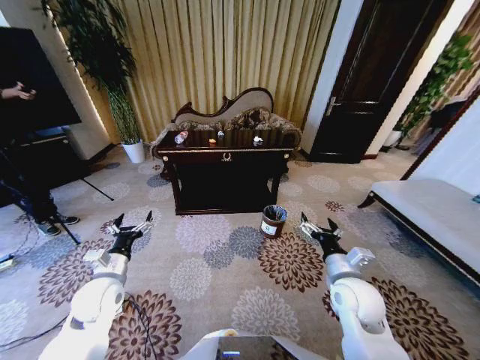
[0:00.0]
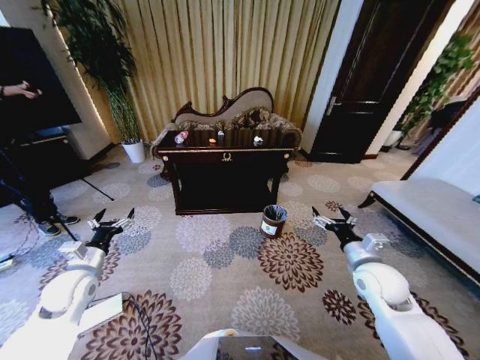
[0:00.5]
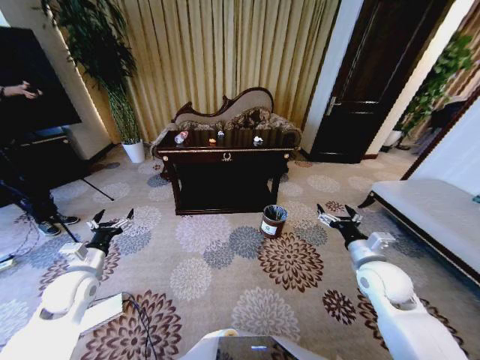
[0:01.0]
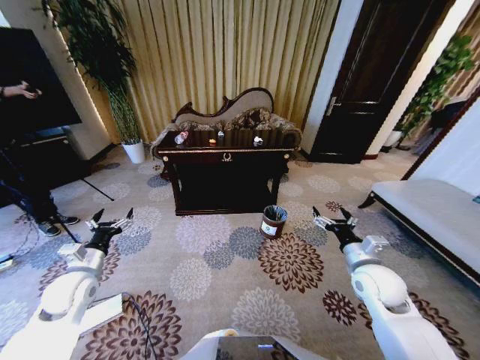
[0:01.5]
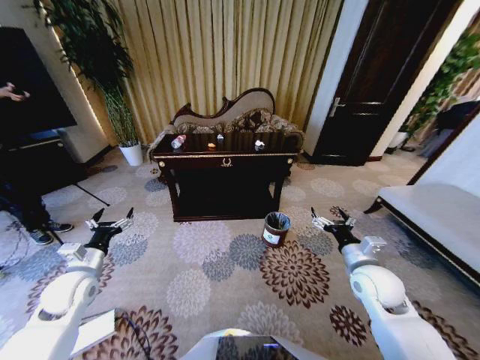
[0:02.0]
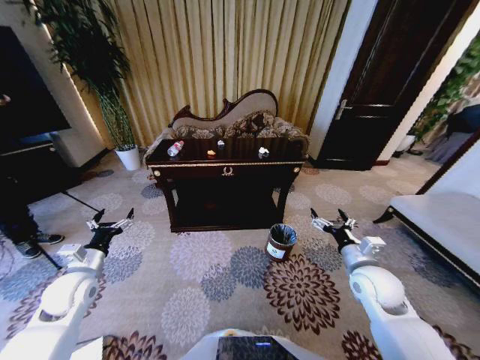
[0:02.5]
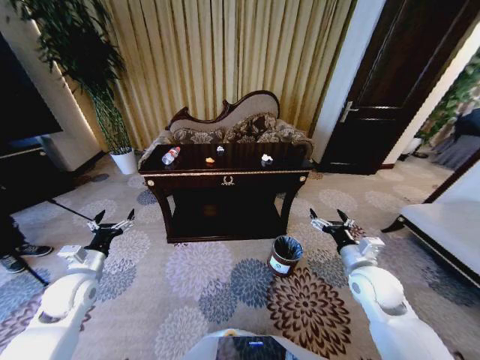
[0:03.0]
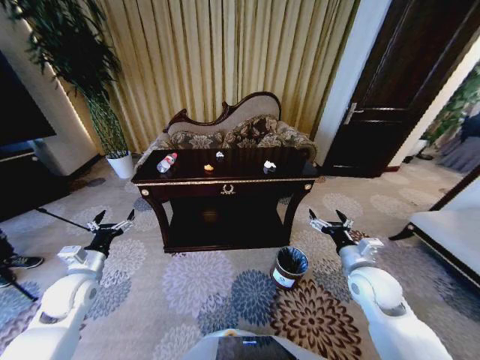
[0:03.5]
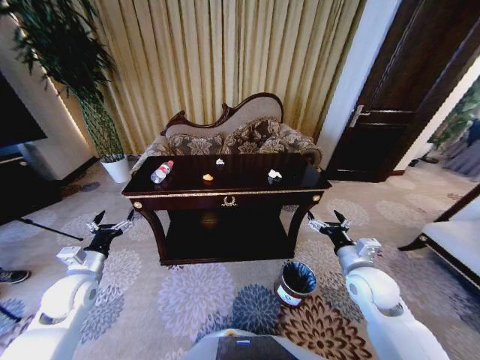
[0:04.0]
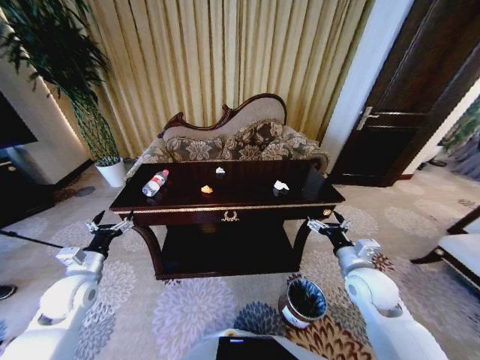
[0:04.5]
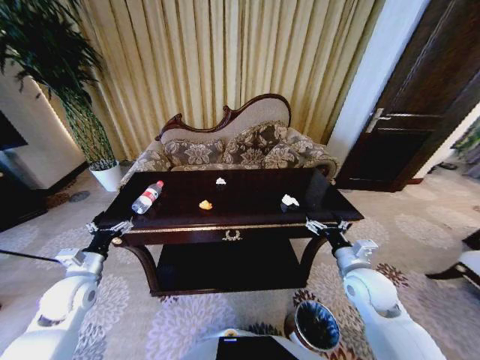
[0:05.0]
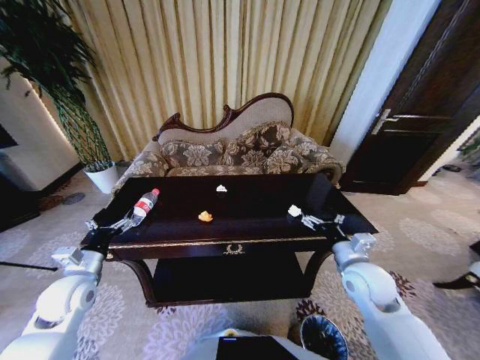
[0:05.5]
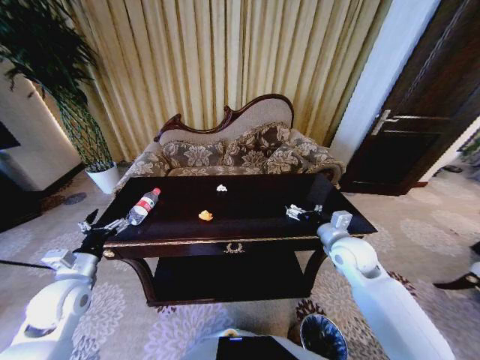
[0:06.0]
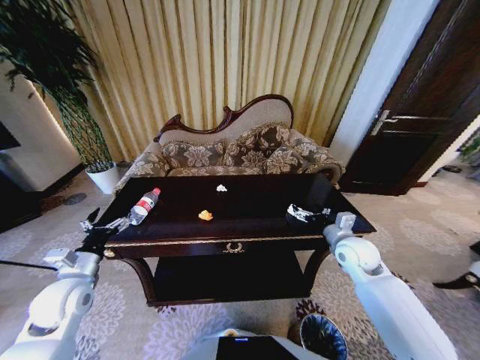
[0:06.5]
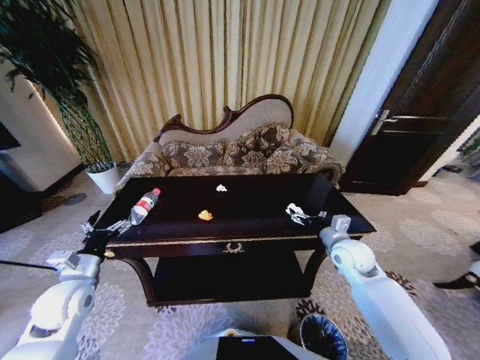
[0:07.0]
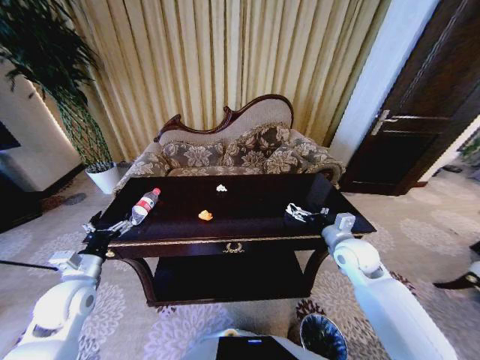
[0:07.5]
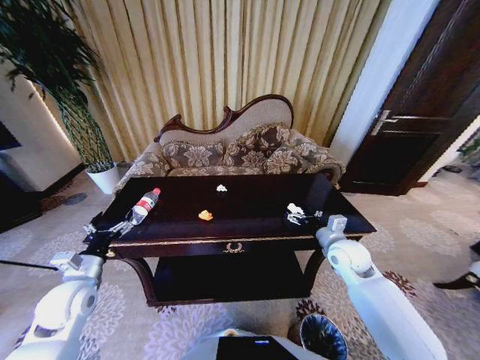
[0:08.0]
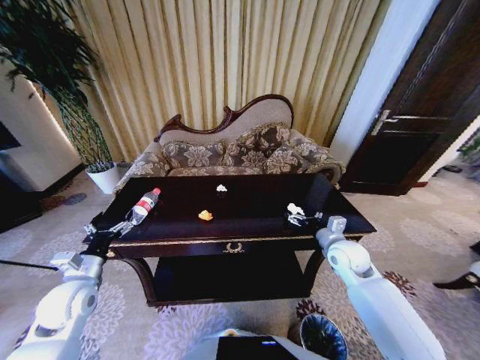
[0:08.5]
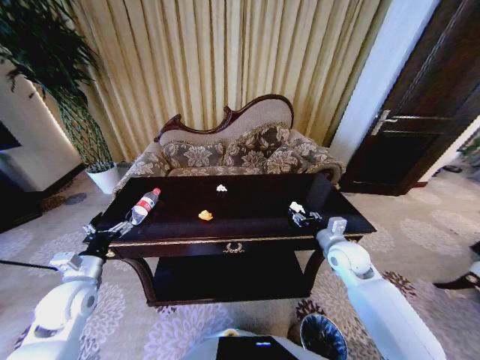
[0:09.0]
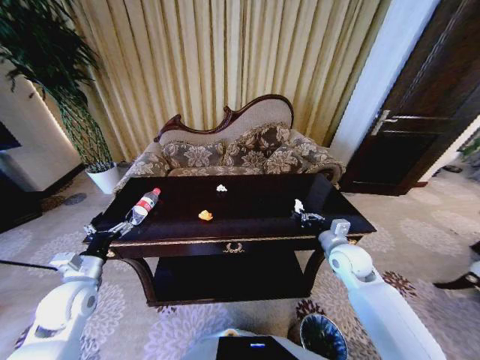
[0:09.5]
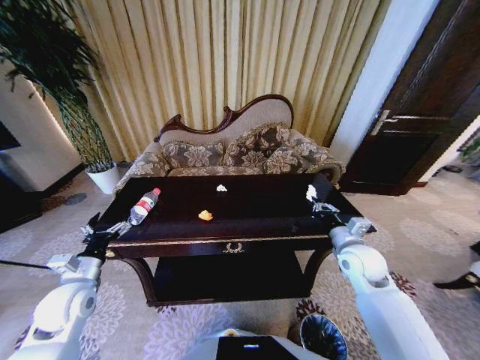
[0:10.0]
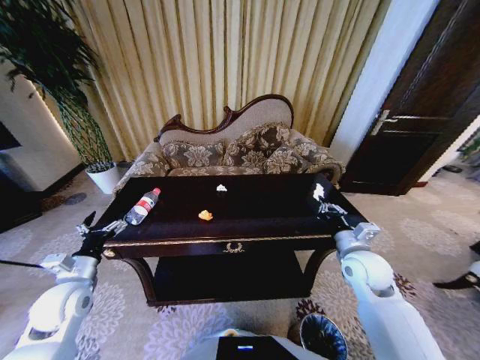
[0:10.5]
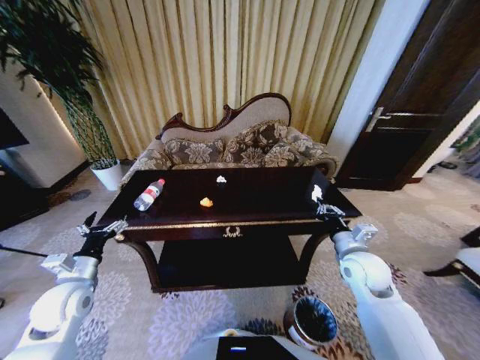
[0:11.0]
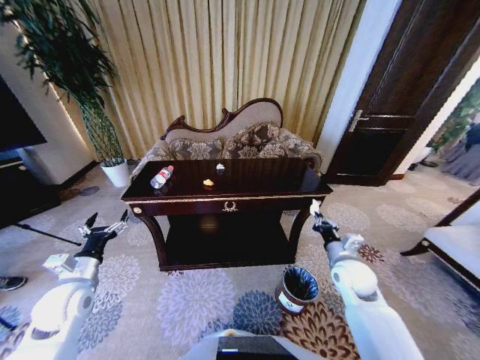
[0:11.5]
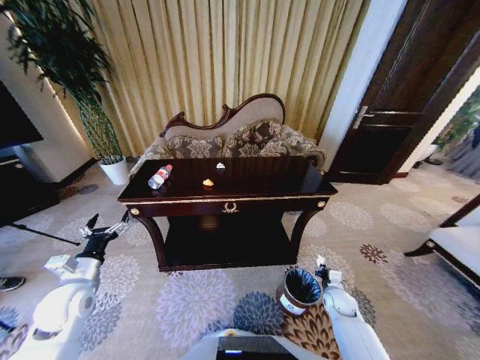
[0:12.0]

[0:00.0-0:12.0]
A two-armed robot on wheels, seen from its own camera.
Task of the whole recording: Move to the front of the table and place the trash on the table into the trash bin.
0:04.0 to 0:06.0: The right gripper heads forward, covering approximately 5 cm.
0:06.0 to 0:08.0: The grippers make only small movements.
0:08.0 to 0:10.0: The right gripper closes.
0:10.0 to 0:12.0: The right gripper moves downward, about 25 cm.

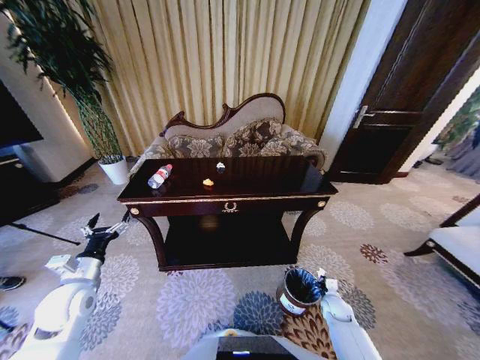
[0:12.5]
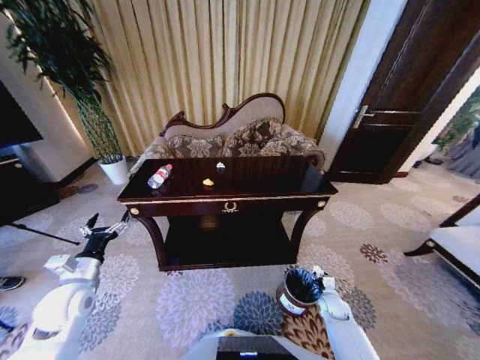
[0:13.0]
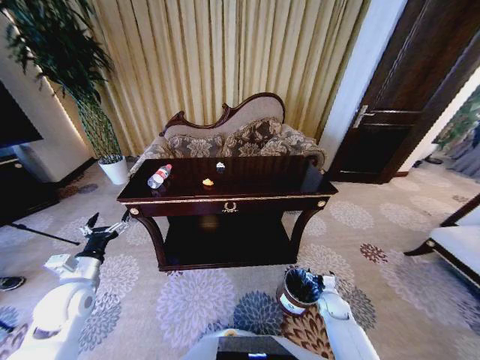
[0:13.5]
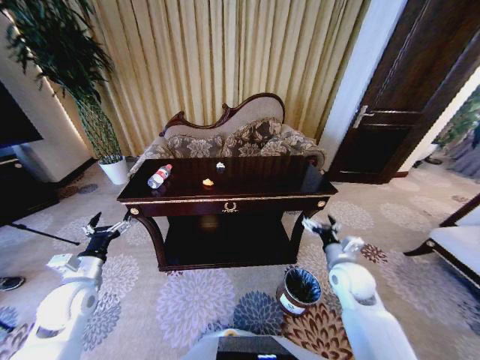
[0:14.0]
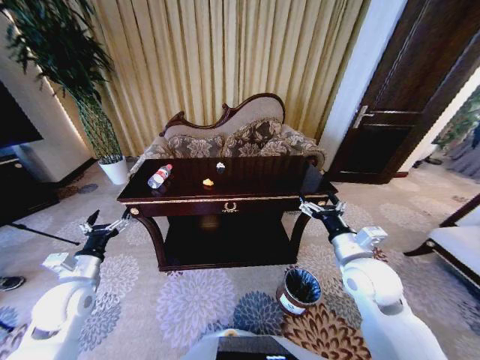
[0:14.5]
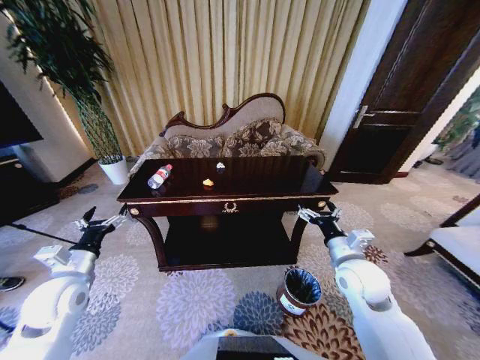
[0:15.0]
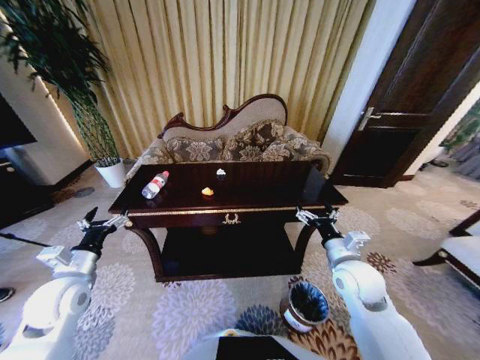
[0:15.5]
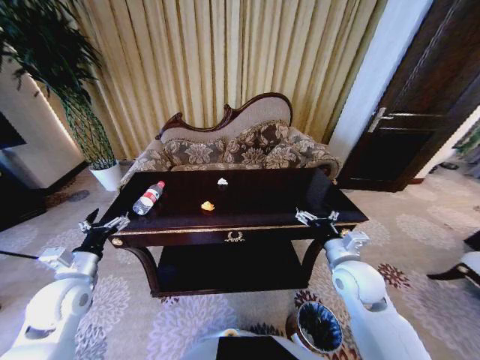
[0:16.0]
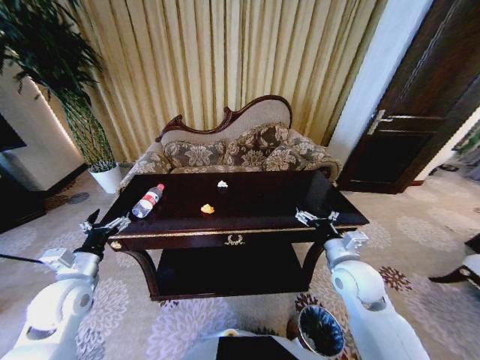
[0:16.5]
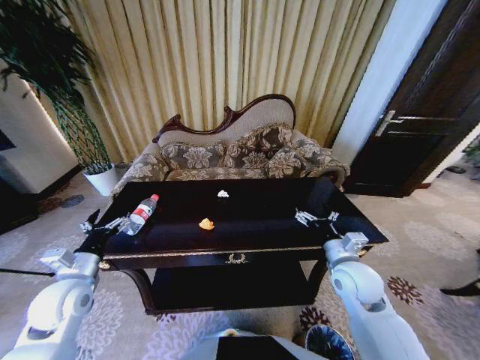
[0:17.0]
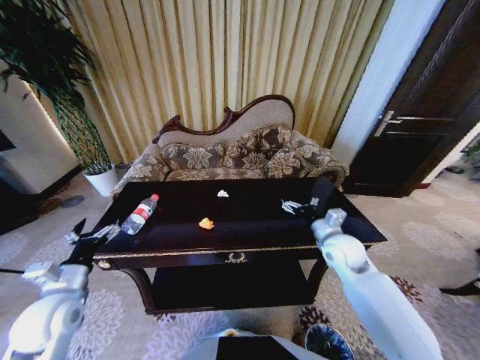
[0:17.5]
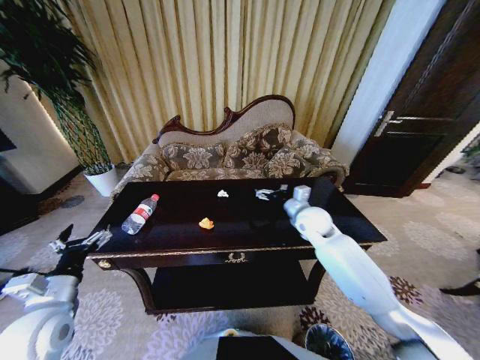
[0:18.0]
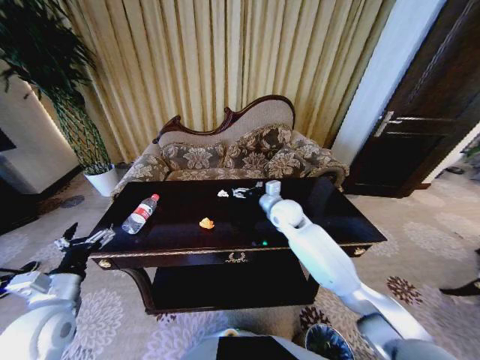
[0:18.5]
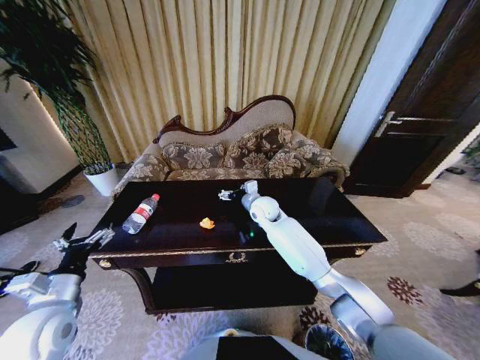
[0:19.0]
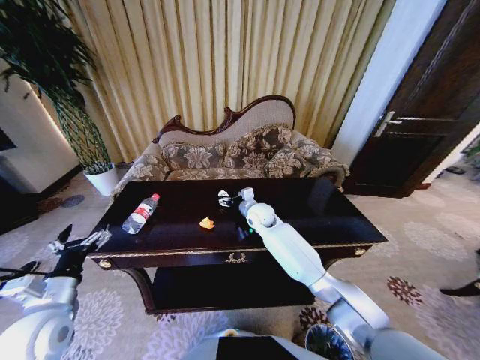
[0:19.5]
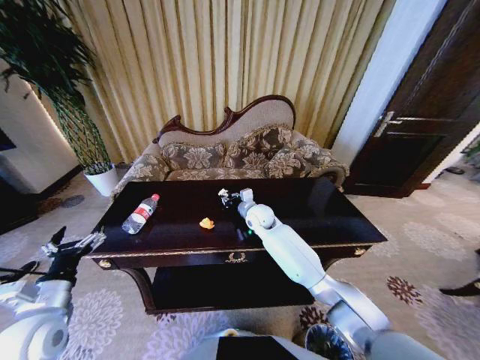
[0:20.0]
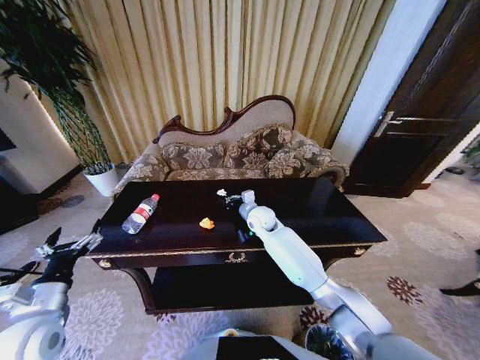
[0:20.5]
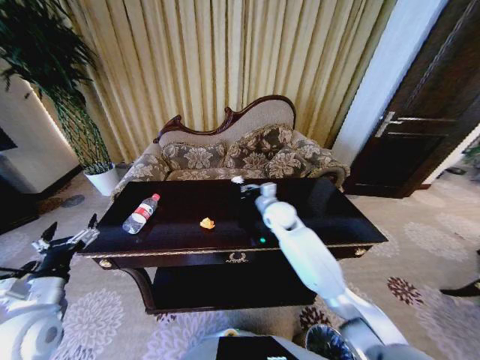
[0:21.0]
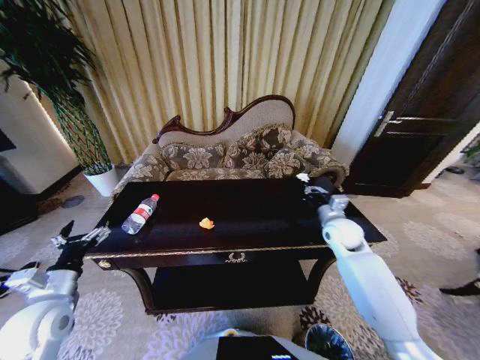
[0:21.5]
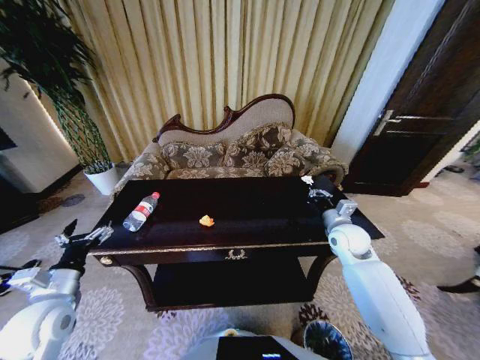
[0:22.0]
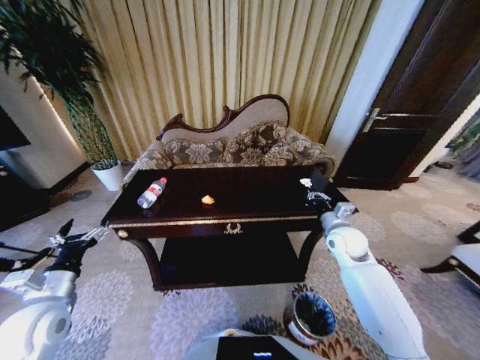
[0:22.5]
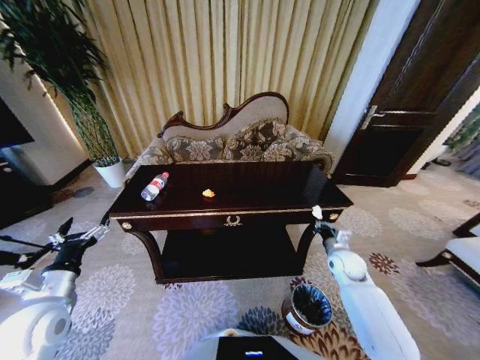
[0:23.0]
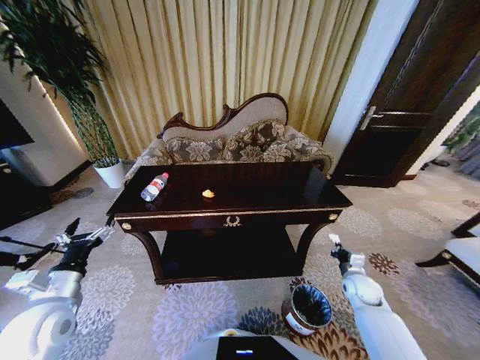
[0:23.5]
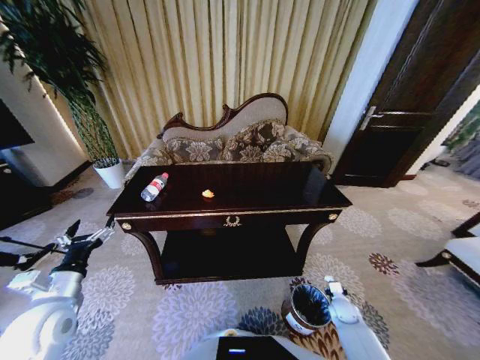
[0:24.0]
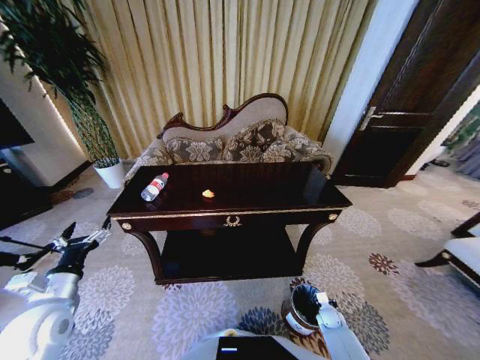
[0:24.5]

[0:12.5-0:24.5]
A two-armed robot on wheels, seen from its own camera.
Task of the whole recording: Move to the front of the table and place the trash on the table into the trash bin.
0:12.5 to 0:14.5: The right gripper heads upward, covering some 35 cm, and opens.
0:16.5 to 0:18.5: The left gripper heads backward, covering some 5 cm. The right gripper travels forward and to the left by roughly 25 cm.
0:18.5 to 0:20.5: The right gripper heads to the left and downward, covering roughly 10 cm, and closes up.
0:20.5 to 0:22.5: The right gripper goes roughly 25 cm to the right and backward.
0:22.5 to 0:24.5: The right gripper moves downward and backward, approximately 40 cm.

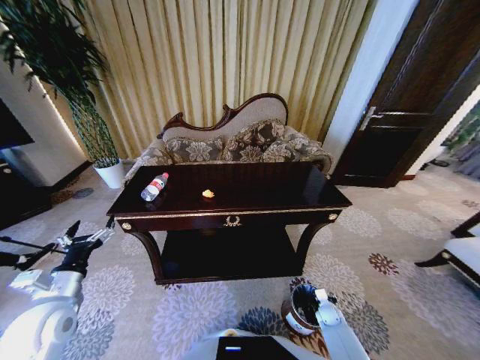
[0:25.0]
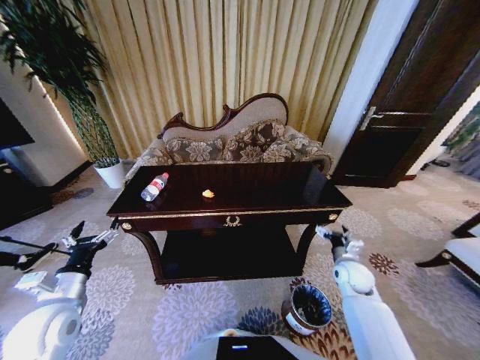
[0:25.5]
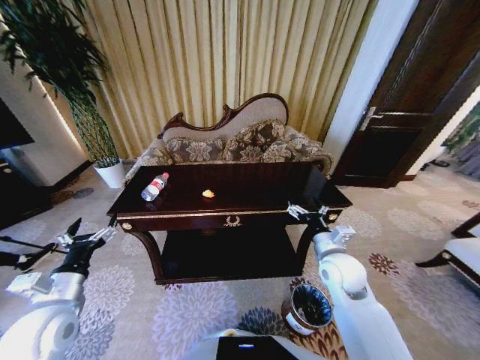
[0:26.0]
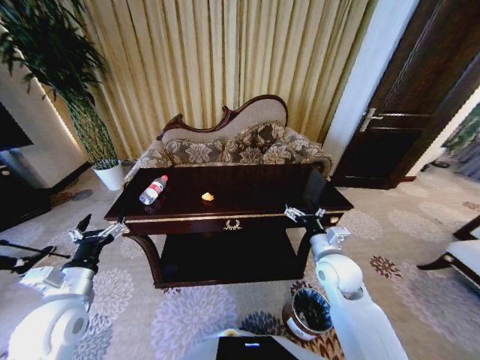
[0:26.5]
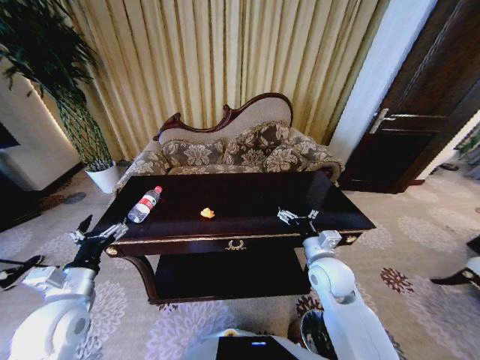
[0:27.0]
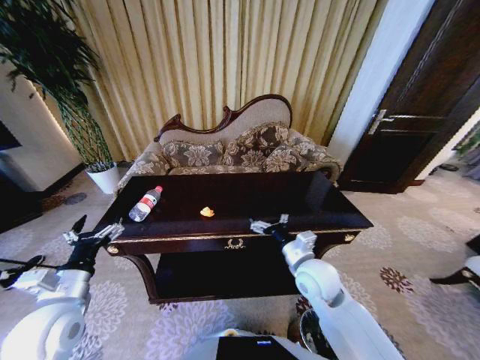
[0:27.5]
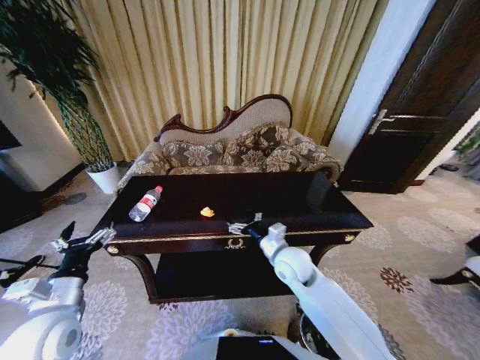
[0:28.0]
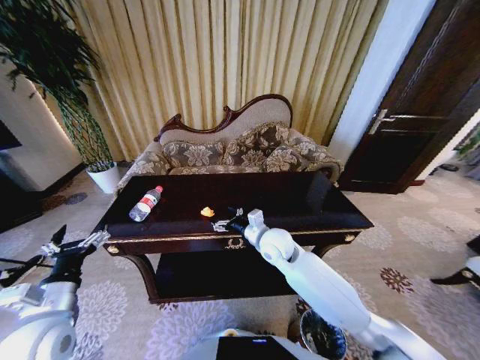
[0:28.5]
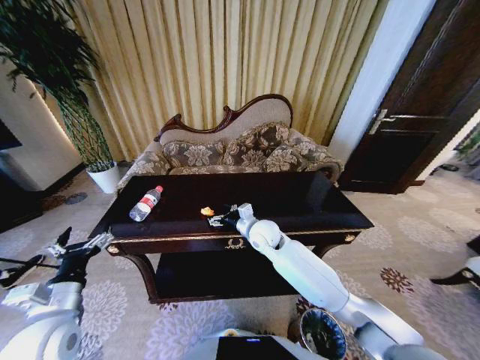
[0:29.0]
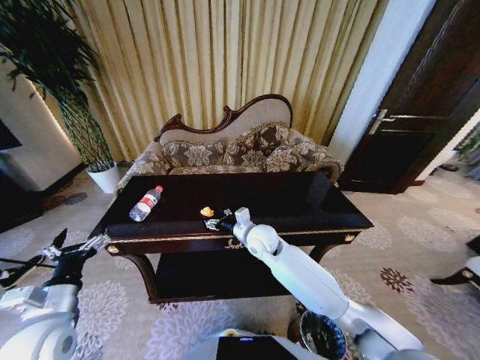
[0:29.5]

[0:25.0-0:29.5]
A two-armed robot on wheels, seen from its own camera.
Task of the whole recording: Move to the front of the table and place the trash on the table into the trash bin.
0:25.0 to 0:27.0: The right gripper moves upward and to the left, about 35 cm, and opens.
0:27.0 to 0:29.5: The right gripper moves to the left and forward, roughly 20 cm.
